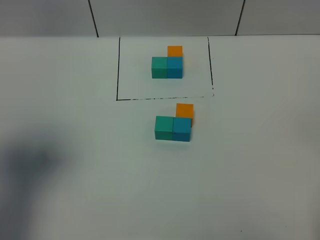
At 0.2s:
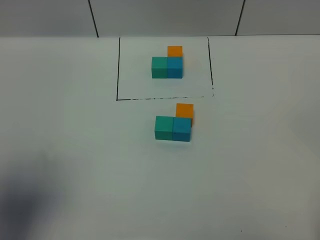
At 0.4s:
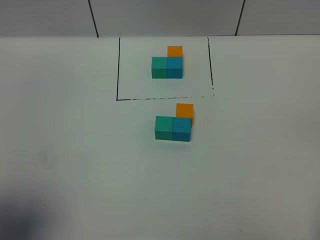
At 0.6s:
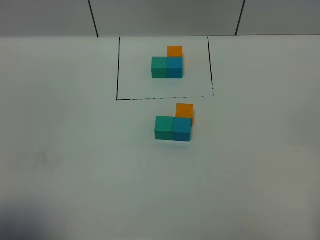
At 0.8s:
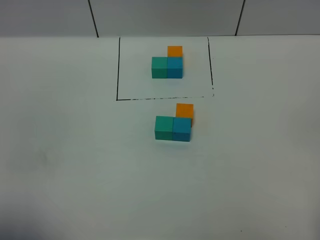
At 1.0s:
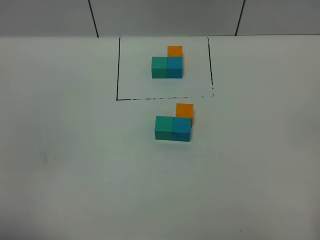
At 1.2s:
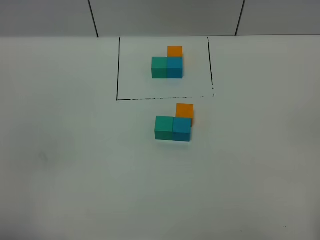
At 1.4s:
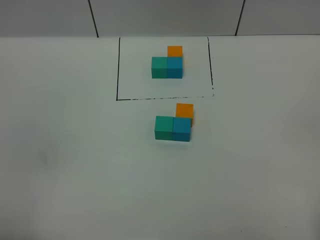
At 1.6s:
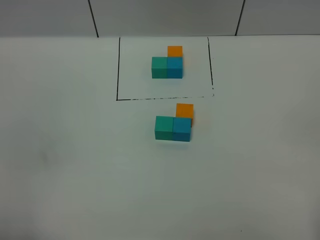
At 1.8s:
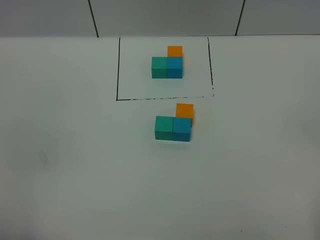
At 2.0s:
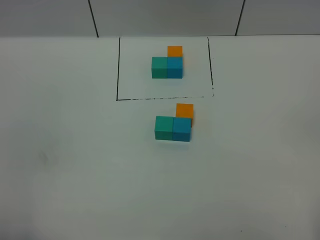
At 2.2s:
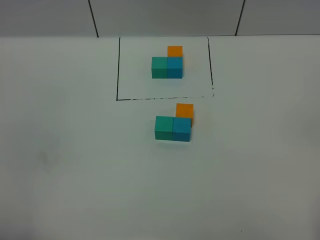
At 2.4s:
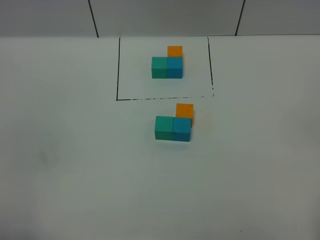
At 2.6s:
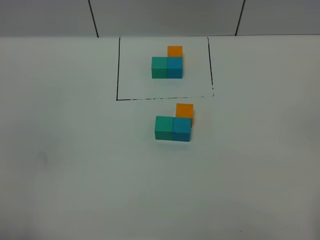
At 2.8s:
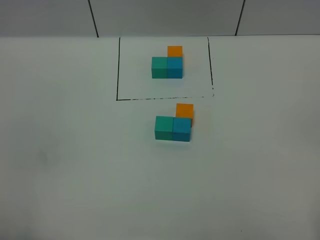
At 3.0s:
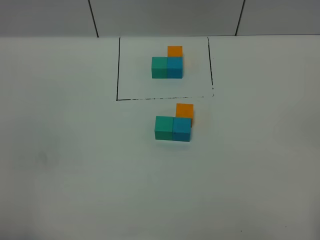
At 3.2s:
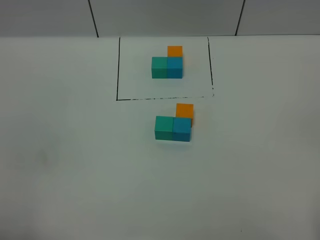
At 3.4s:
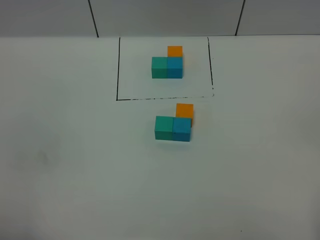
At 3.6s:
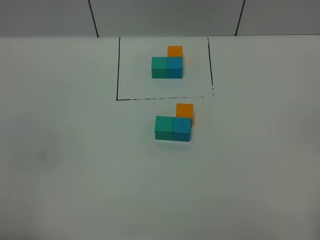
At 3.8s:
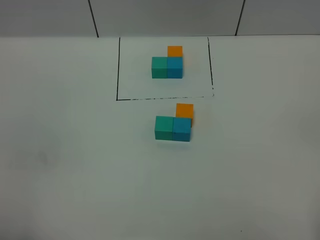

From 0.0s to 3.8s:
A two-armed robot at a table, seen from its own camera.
Task of the whole recording: According to the building block template in front, assemble the scattered blocks together.
From 0.0s to 1.2s: The left gripper goes approximately 20 cm backward and downward.
From 2.6s to 3.8s: Neither gripper changes place.

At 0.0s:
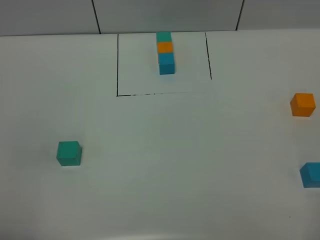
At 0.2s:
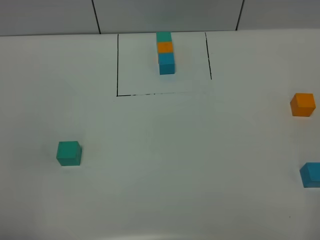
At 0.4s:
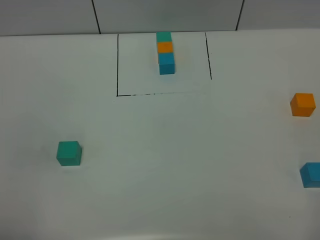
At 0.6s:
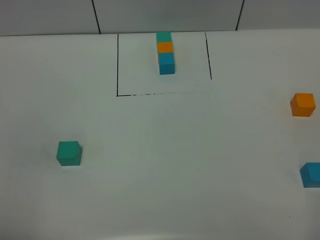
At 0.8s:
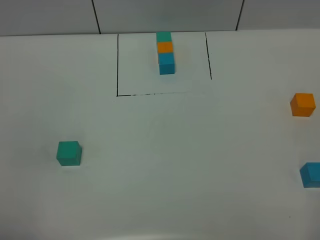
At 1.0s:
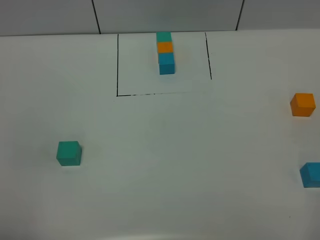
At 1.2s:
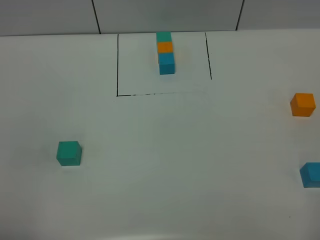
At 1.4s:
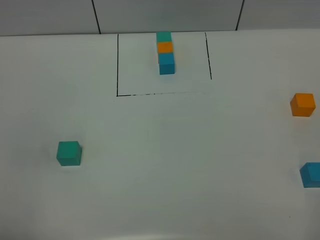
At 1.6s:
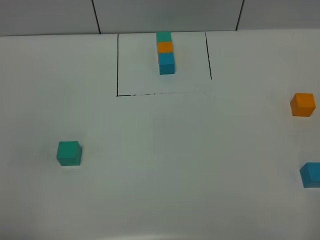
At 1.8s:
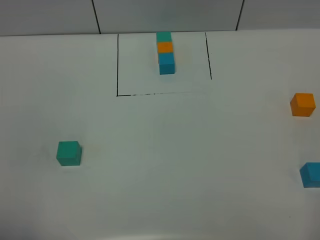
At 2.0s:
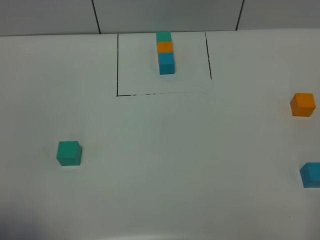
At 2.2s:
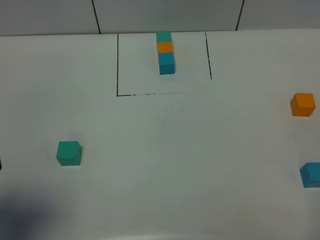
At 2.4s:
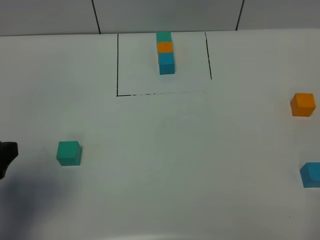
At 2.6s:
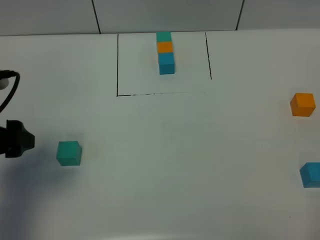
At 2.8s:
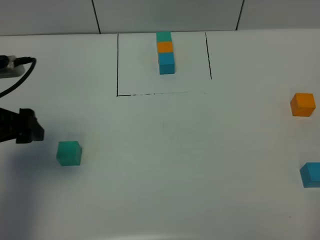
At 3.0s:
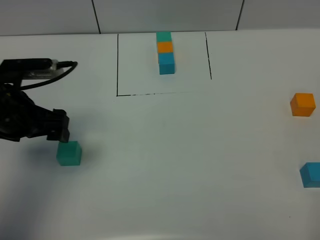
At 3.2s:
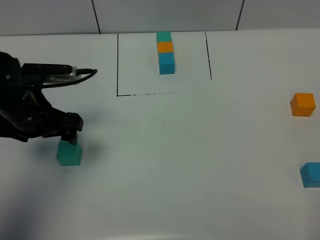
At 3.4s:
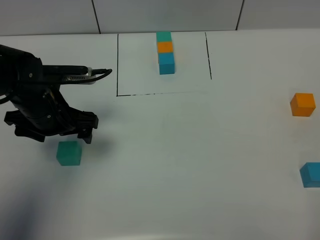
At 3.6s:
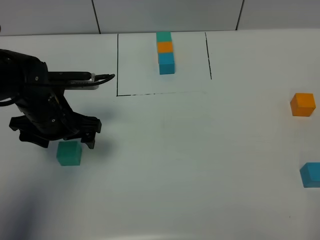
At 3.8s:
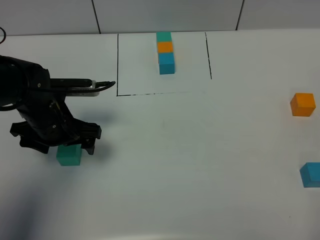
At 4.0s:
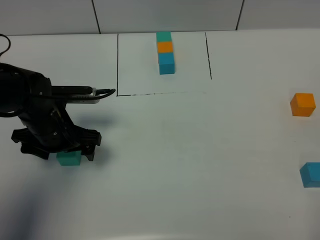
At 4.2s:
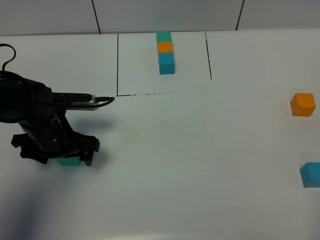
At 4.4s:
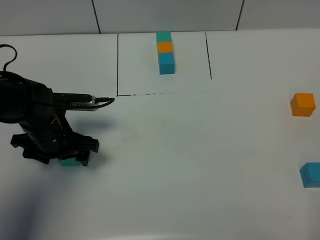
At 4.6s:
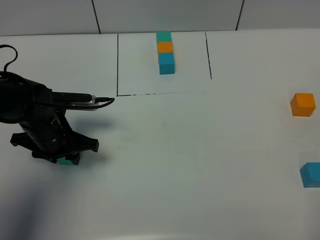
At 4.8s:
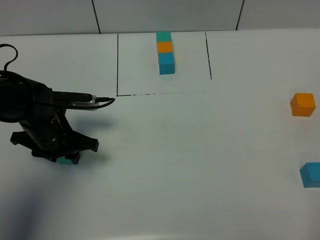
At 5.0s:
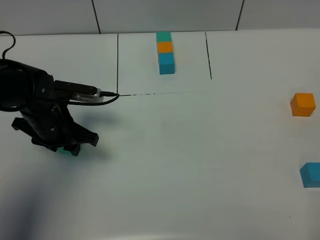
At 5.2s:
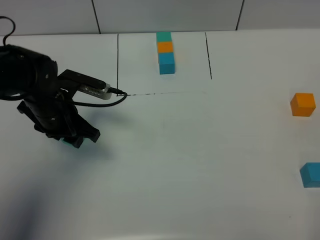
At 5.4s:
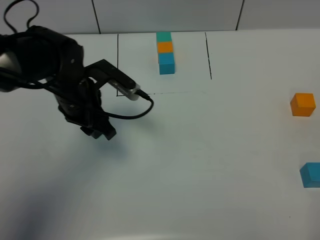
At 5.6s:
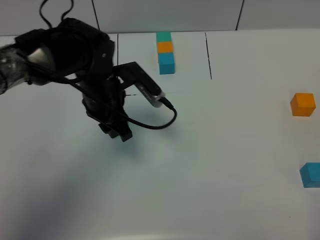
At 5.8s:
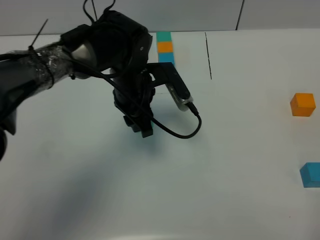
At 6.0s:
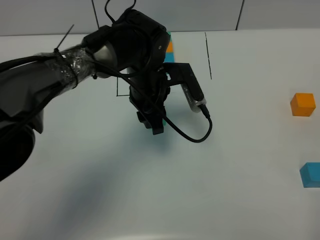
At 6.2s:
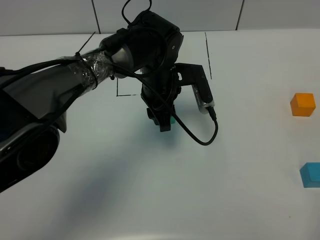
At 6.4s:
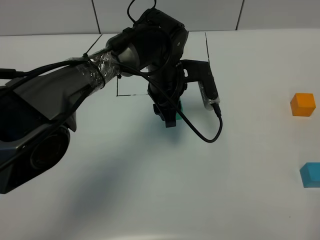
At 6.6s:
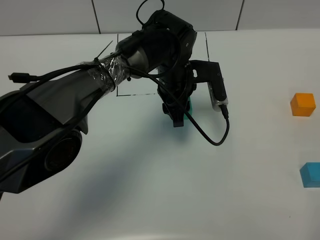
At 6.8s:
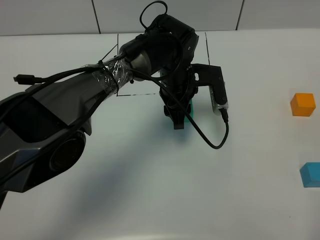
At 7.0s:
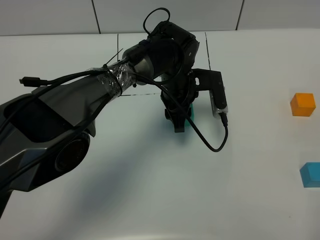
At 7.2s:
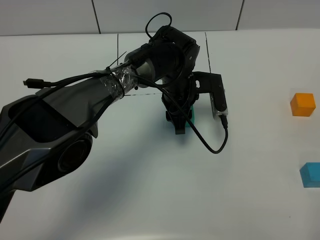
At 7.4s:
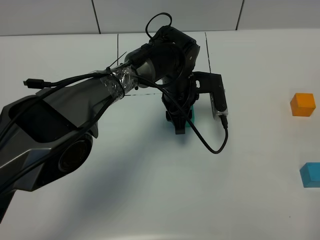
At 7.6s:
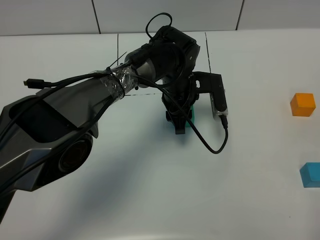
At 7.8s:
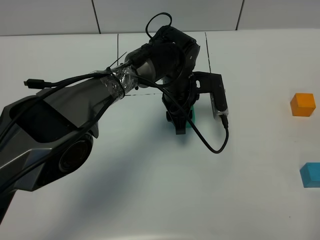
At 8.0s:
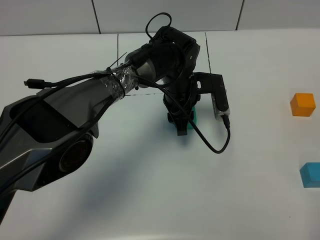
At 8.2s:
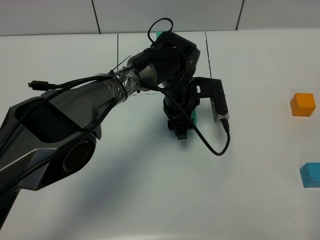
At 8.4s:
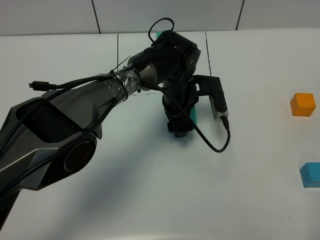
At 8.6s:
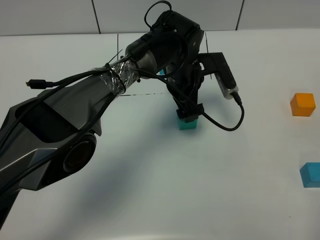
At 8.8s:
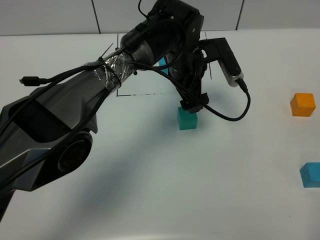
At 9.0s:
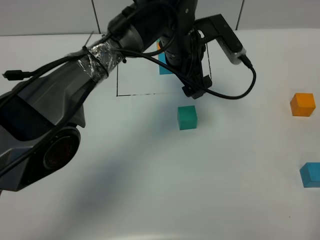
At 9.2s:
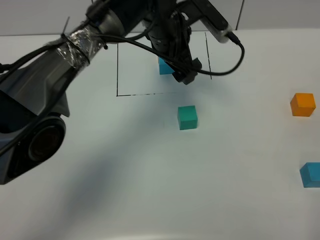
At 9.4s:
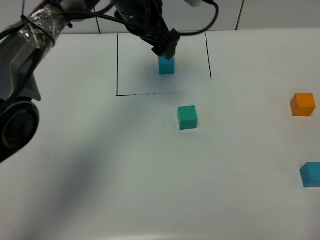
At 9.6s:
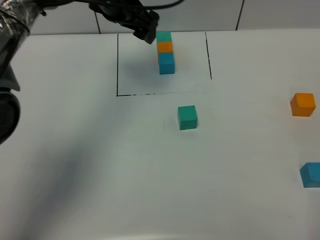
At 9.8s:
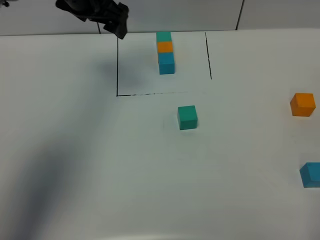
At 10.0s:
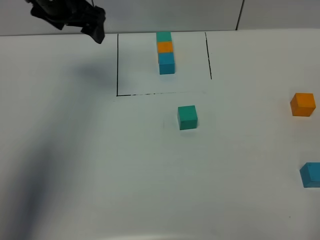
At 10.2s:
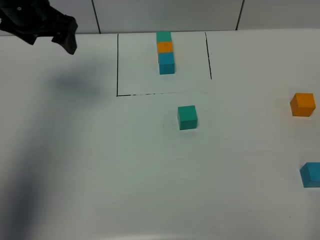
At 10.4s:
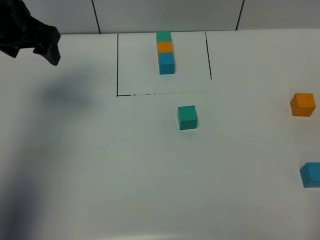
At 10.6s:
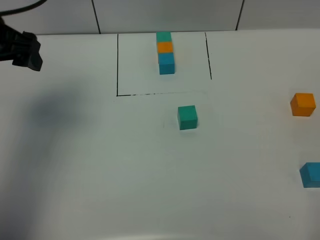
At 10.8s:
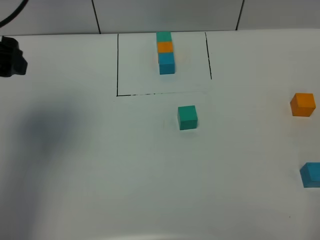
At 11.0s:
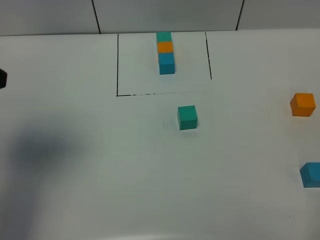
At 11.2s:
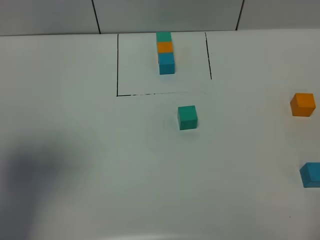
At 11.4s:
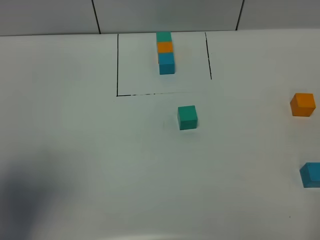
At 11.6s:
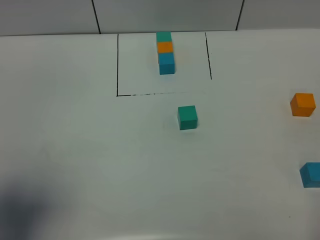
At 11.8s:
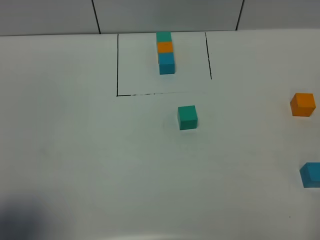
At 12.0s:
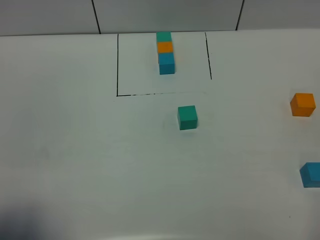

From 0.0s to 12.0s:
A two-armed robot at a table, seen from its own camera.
Task of the whole recording: According to the building block template in front, assemble the scattered blocks together.
Step, from 0.0s to 8.4s: Put the green build block in the center of the table.
From 0.0s to 1.6s: The two grippers keep their place.
From 1.6s to 3.0s: The left gripper travels forward by about 30 cm.
From 3.0s to 4.4s: The left gripper moves downward, roughly 10 cm.
From 4.4s to 6.0s: The left gripper is displaced to the right by about 20 cm, and closes up.
From 6.0s to 7.6s: The left gripper goes some 5 cm to the right.
From 7.6s to 9.0s: The left gripper heads upward, covering some 10 cm, and opens its fingers.
From 9.0s to 10.4s: The left gripper heads to the left, covering approximately 30 cm.
From 10.4s to 12.0s: The left gripper heads backward, covering some 35 cm.

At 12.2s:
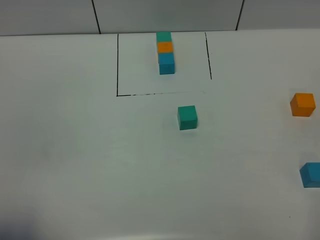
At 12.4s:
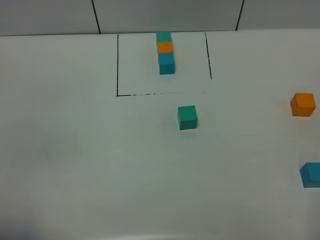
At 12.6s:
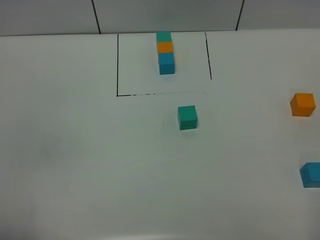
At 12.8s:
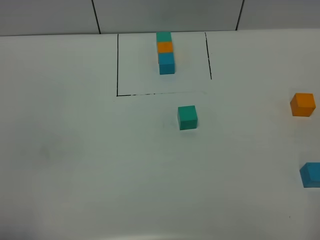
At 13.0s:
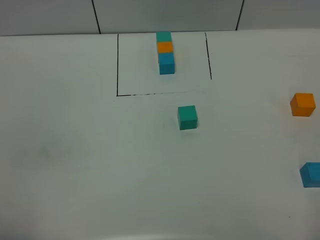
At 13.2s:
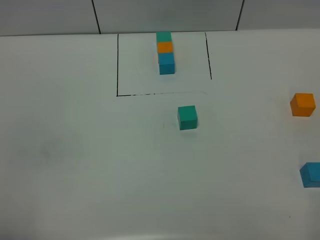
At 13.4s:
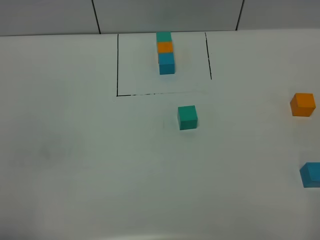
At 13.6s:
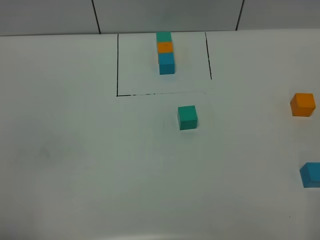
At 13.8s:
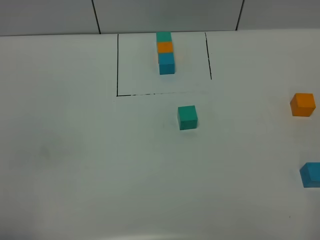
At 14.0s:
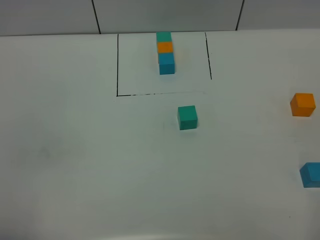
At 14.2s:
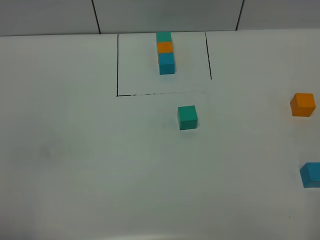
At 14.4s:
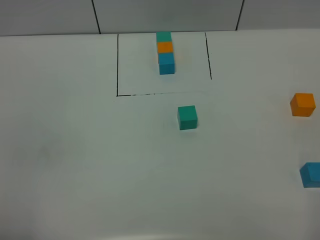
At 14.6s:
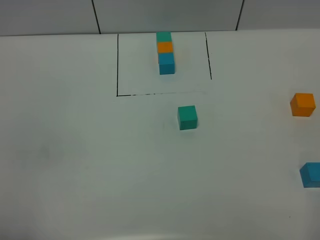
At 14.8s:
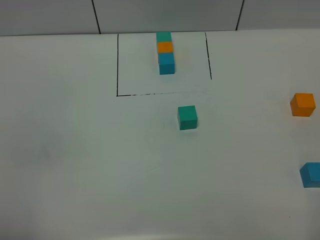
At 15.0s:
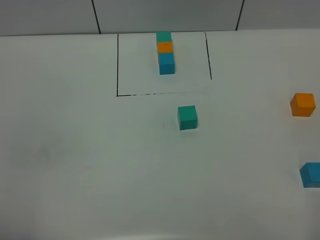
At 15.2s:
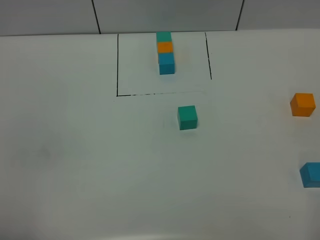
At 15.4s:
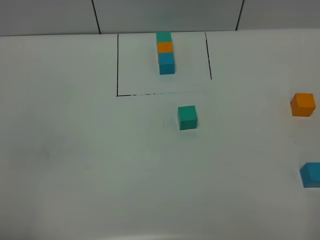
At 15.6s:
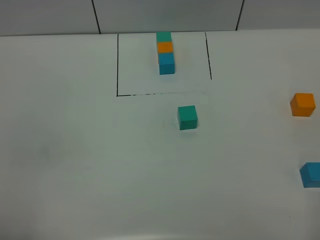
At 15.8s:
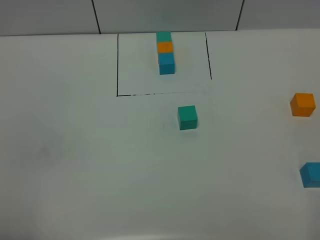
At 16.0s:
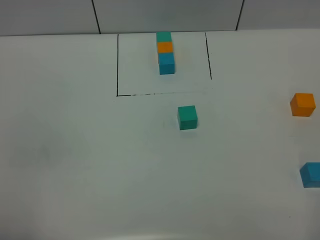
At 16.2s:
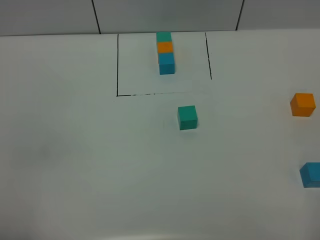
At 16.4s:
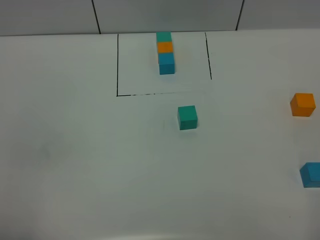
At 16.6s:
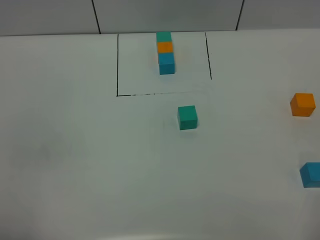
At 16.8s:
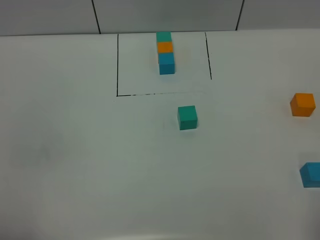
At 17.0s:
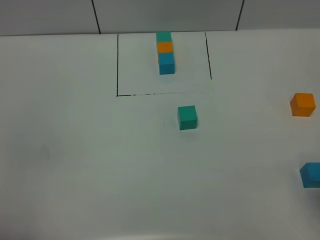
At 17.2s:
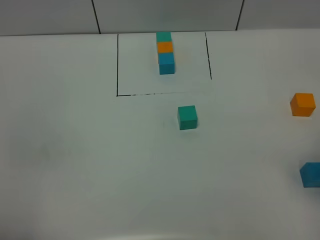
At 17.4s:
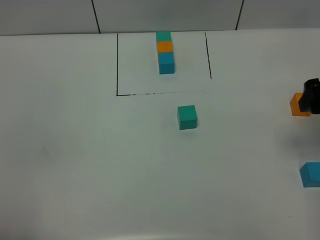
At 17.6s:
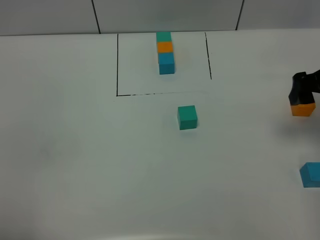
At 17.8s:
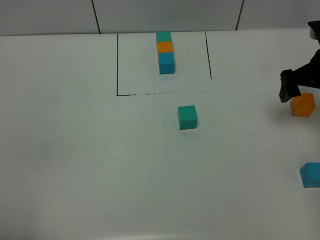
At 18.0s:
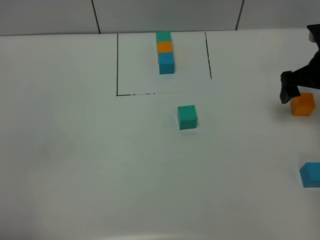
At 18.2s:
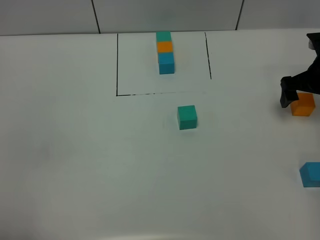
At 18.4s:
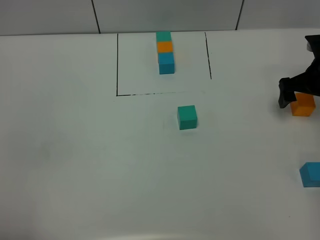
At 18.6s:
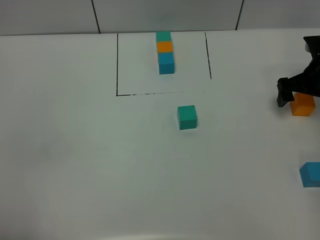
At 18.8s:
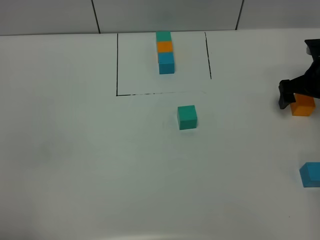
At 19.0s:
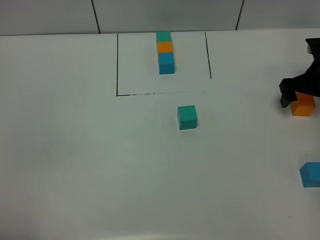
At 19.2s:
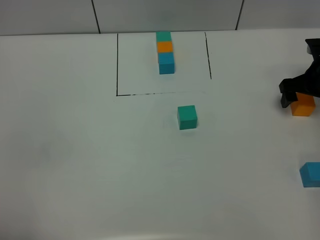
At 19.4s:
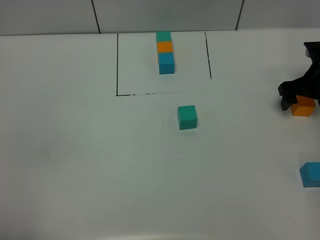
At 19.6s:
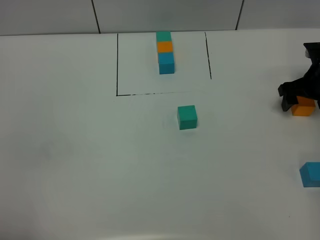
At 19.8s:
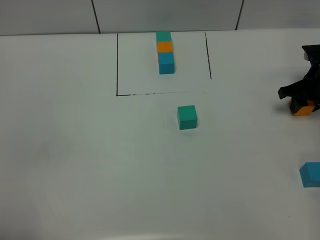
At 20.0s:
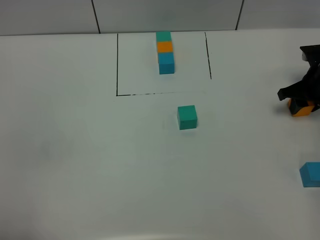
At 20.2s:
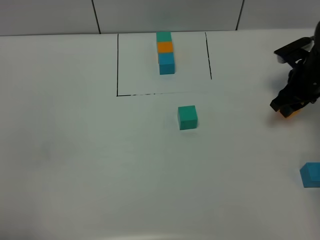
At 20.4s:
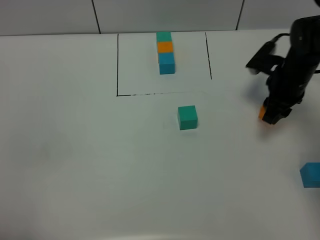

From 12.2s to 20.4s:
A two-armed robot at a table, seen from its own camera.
Task of the whole recording: According to the building block template in front, assemble the scattered blocks together.
From 13.8s to 15.4s: Both grippers stay put.
From 17.2s to 18.8s: The right gripper heads forward and downward, covering approximately 30 cm.
From 18.8s to 20.4s: The right gripper goes some 10 cm to the left, and closes.
